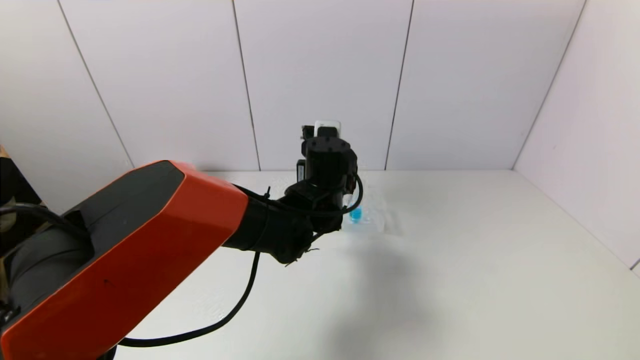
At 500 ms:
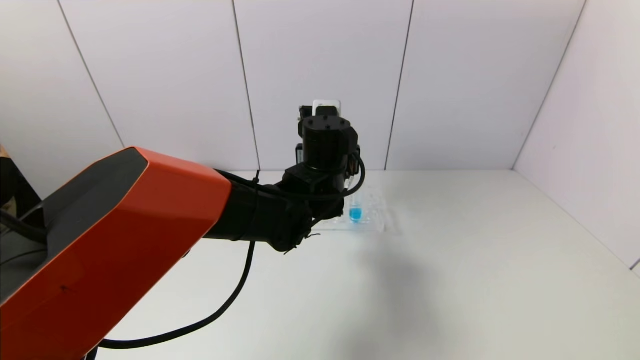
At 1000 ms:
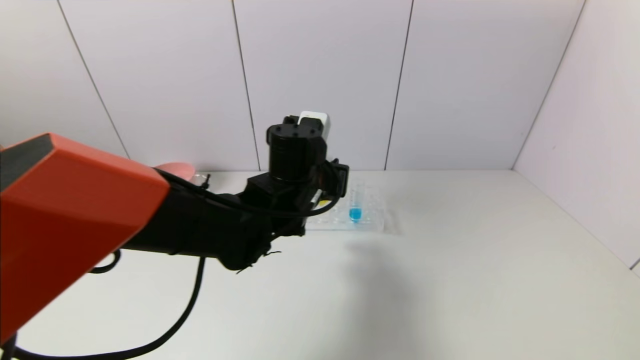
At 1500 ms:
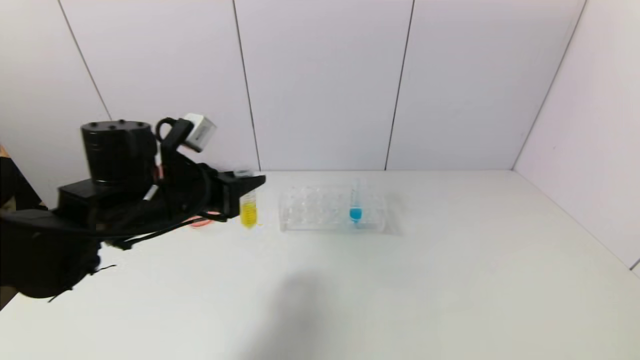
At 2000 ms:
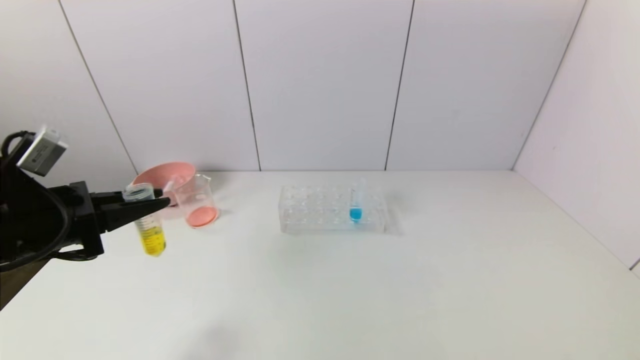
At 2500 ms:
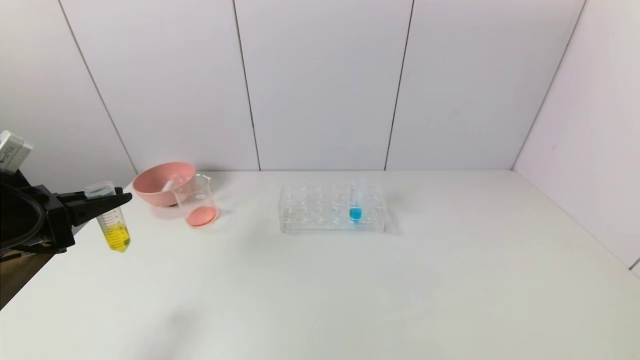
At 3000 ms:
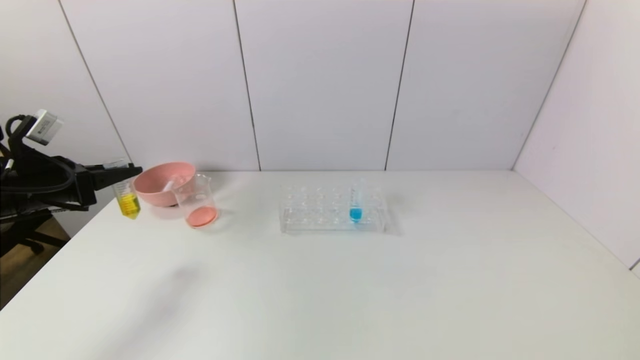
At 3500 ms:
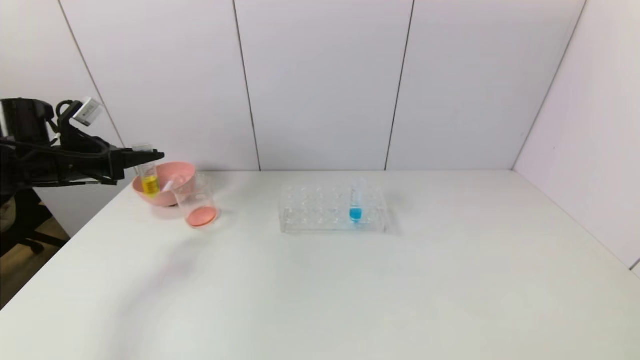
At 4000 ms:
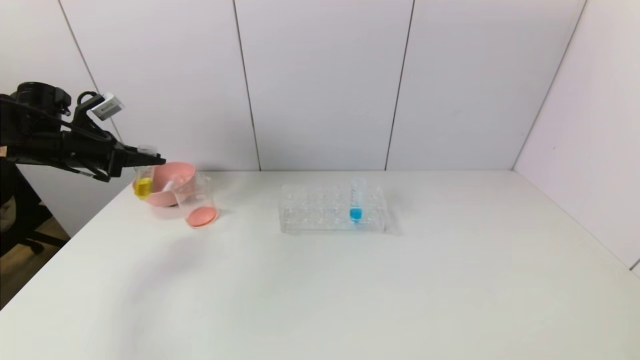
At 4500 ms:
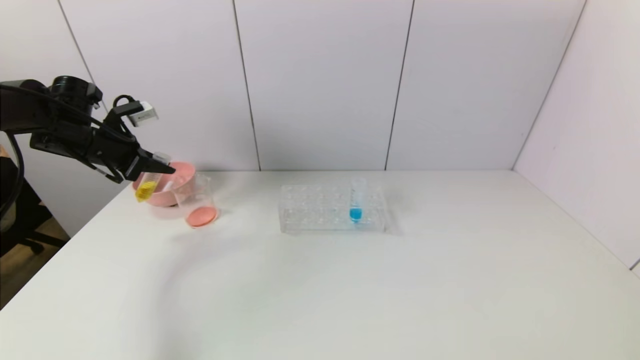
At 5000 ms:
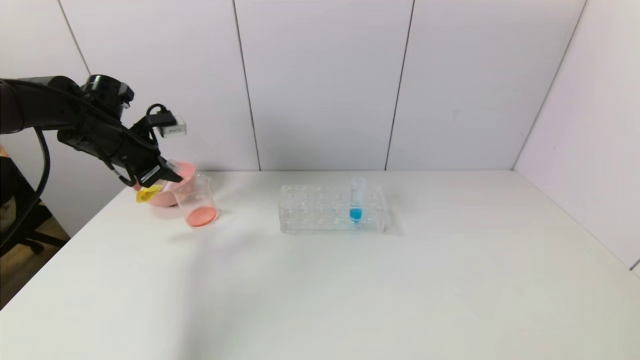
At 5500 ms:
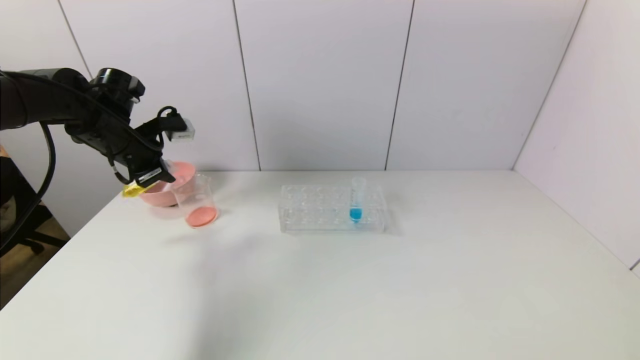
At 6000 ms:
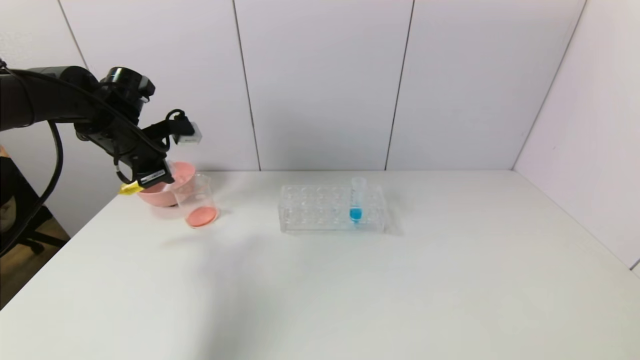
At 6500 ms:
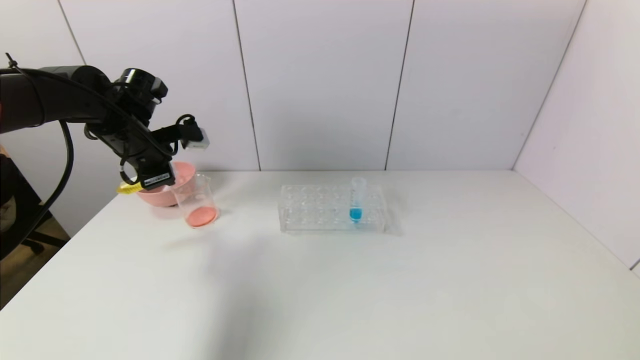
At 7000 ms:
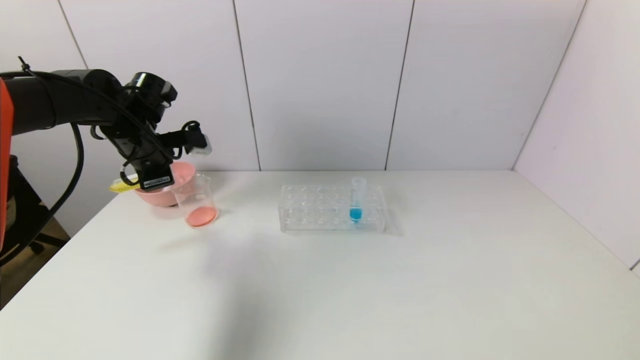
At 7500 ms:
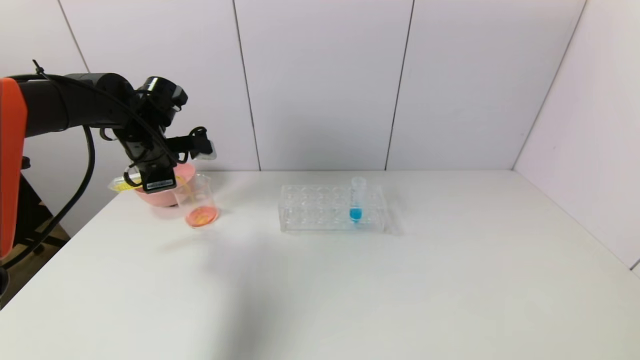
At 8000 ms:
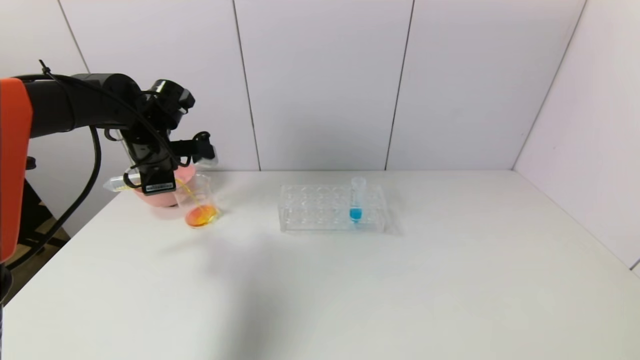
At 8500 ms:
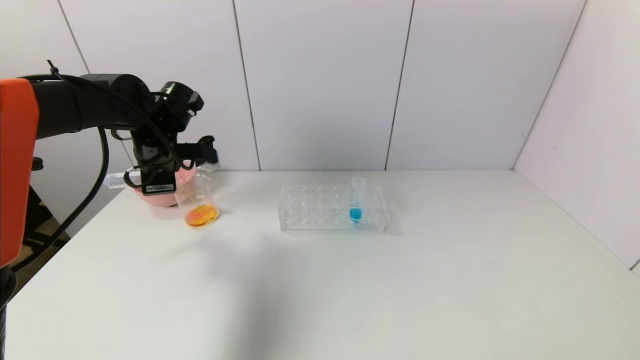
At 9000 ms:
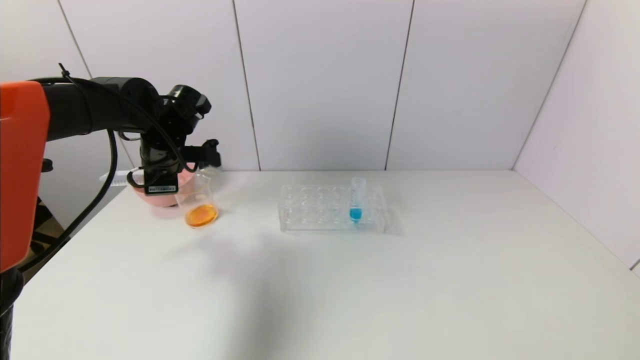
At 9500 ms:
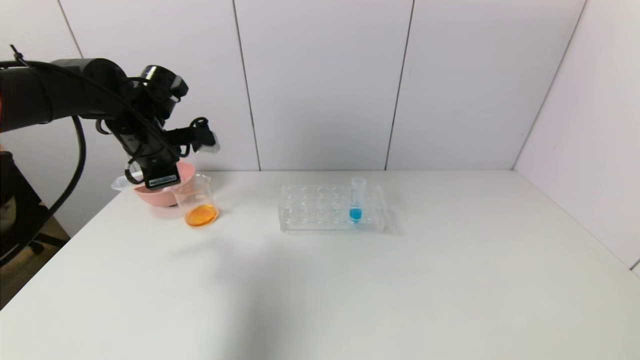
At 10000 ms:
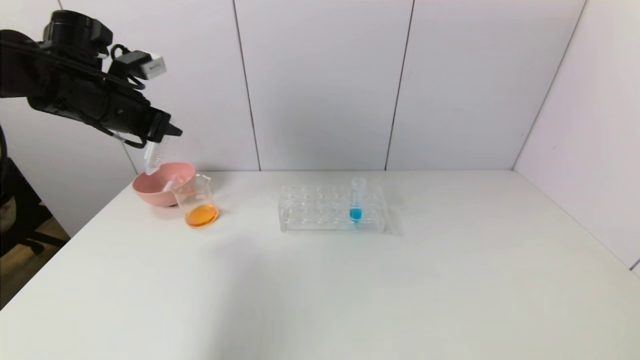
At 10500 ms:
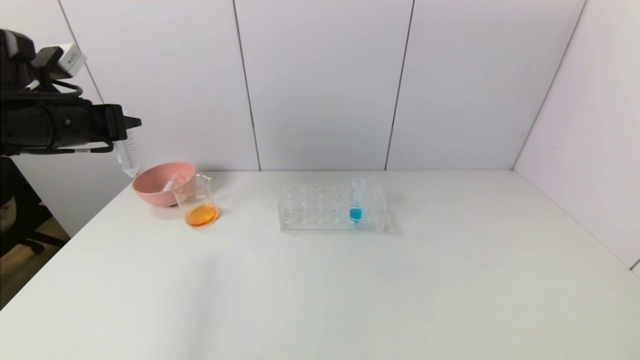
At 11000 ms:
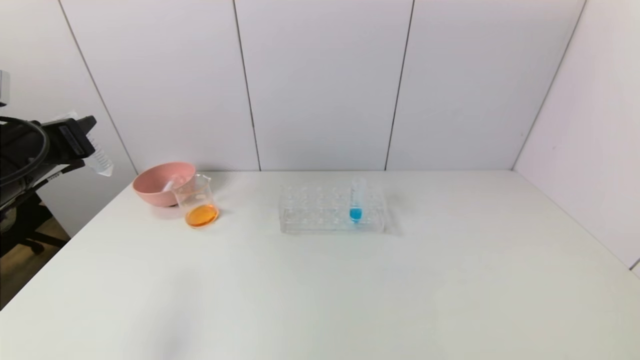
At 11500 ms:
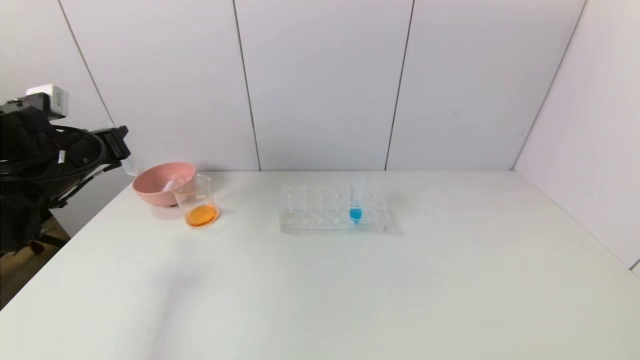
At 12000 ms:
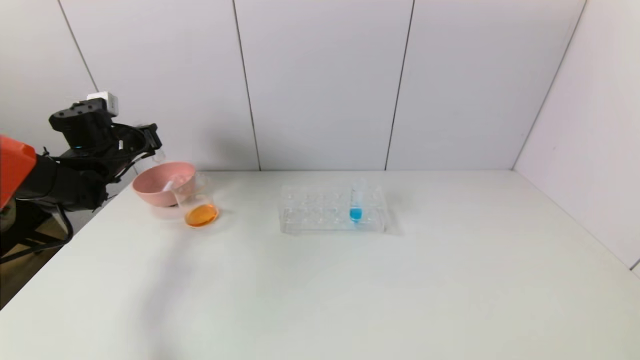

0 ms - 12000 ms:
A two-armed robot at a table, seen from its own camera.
Task of the whole recording: pick up the test tube with yellow pigment and the test tube with red pigment by grippers and pour them into the beaker.
Step, 0 ms - 9000 ms: Pour the yellow reagent into the graduated cylinder with the left gripper.
0 ms - 2000 ms: The left gripper heads to the left and backward, covering roughly 35 cm.
2000 ms - 4000 ms: The left gripper travels forward and to the left by some 20 cm.
4000 ms - 6000 ms: The left gripper is displaced to the right by roughly 10 cm.
8000 ms - 10000 ms: The left gripper is displaced upward by roughly 10 cm.
10000 ms - 12000 ms: The left gripper travels downward, forward and to the left by some 15 cm.

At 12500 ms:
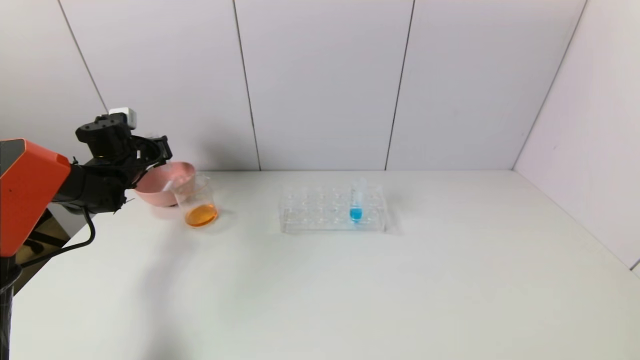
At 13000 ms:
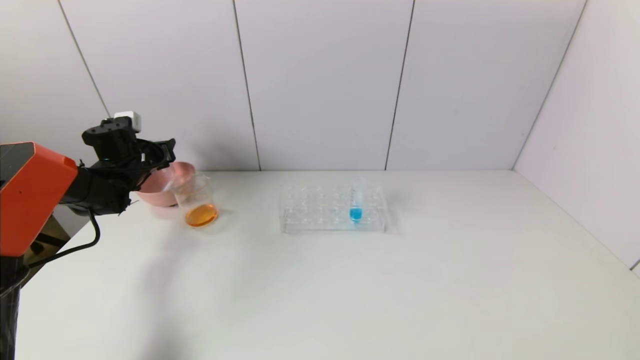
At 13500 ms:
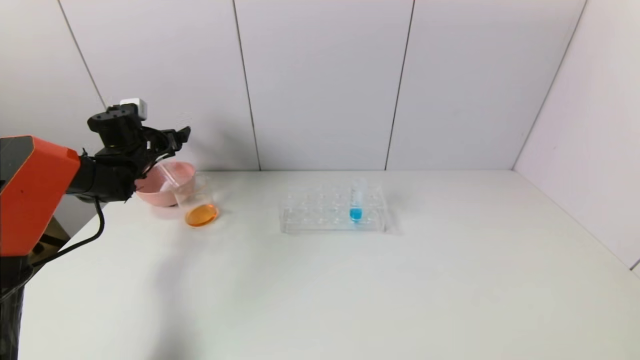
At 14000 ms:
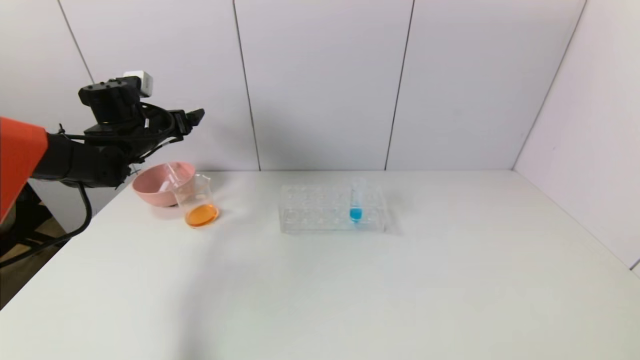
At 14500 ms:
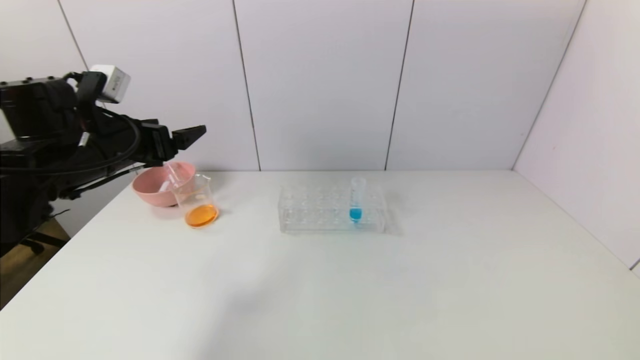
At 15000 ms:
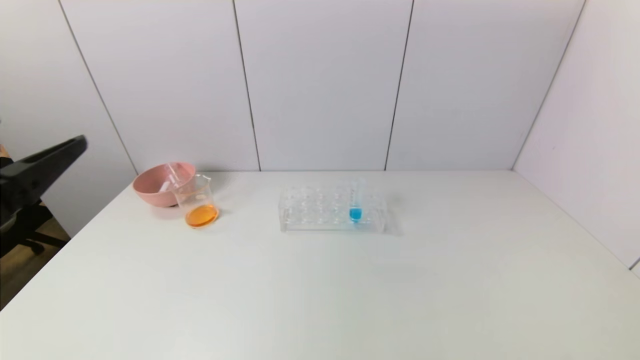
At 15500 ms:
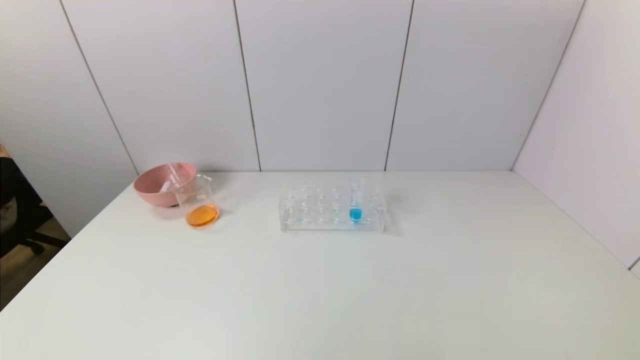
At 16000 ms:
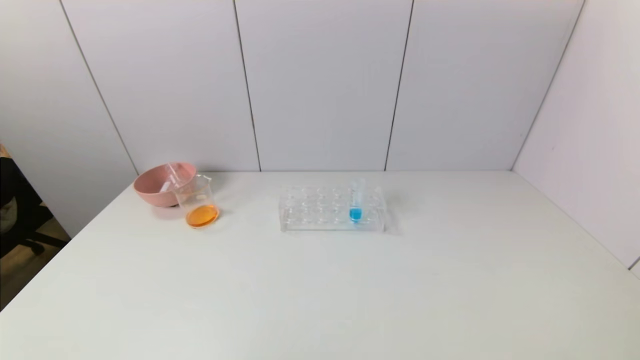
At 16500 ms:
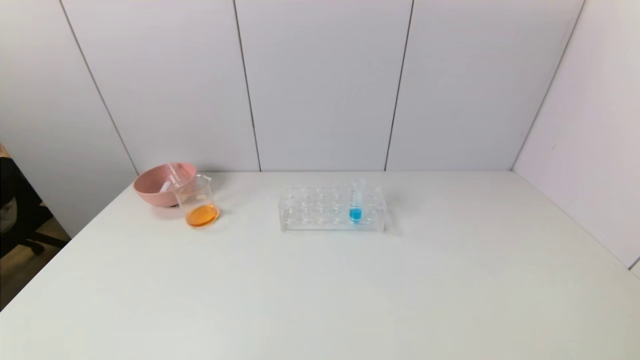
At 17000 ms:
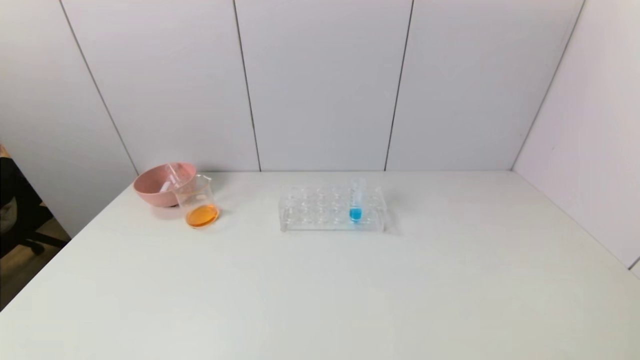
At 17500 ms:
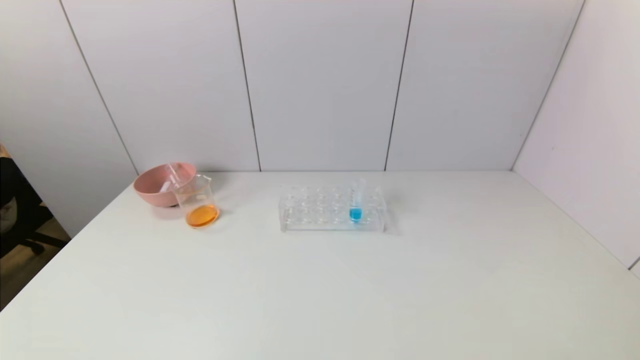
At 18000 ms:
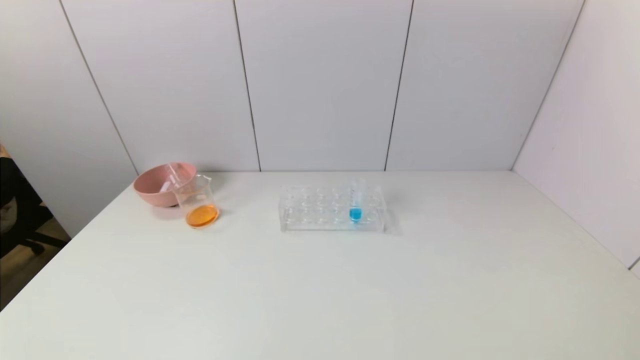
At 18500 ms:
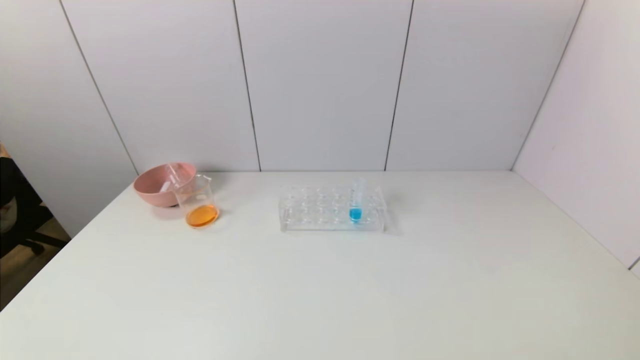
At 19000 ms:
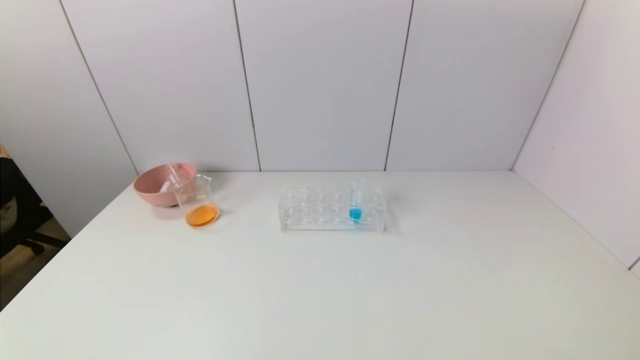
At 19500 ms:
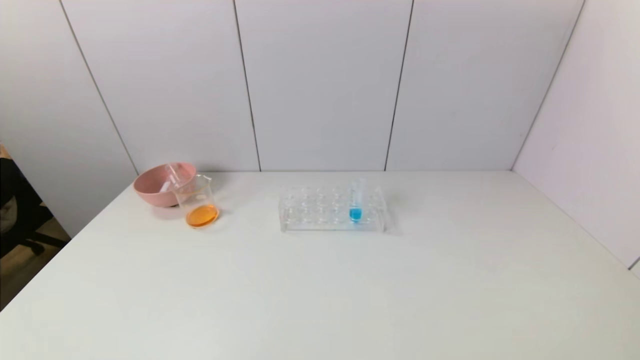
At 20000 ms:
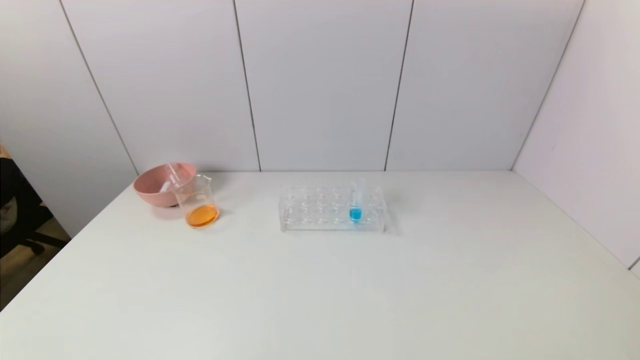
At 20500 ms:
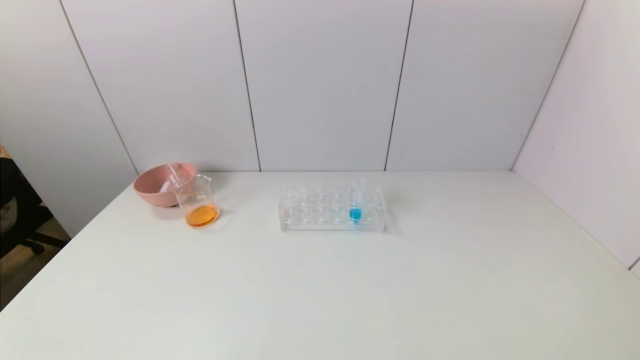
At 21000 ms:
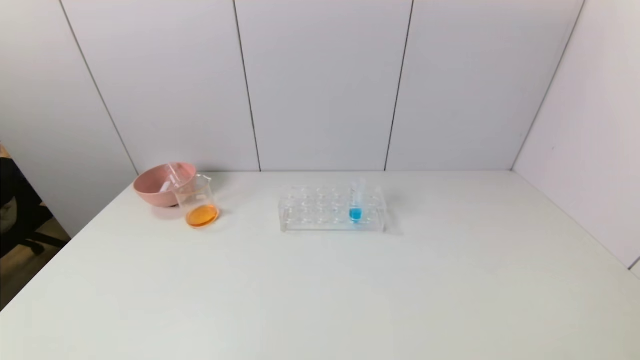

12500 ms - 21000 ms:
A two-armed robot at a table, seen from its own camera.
Task of the whole recording: pick up the test tube with yellow pigment and the test tube with red pigment by grippers and pour them into the beaker.
12500 ms - 14500 ms: The left gripper goes about 20 cm backward, upward and to the right, and opens.
14500 ms - 16500 ms: The left gripper moves backward and downward, about 35 cm.
19000 ms - 21000 ms: Neither gripper changes place.
